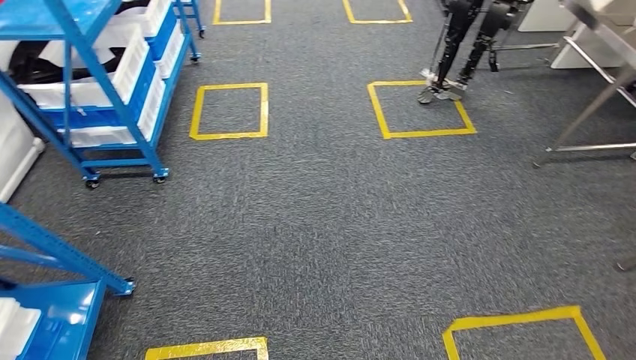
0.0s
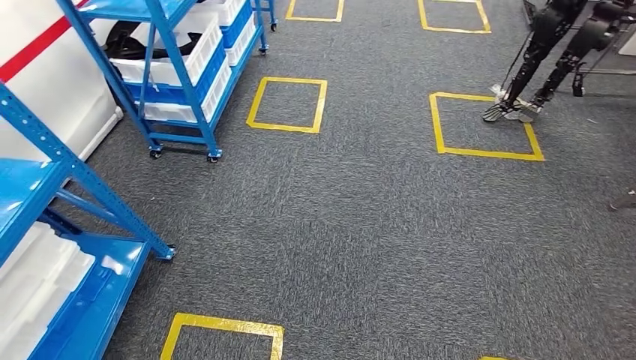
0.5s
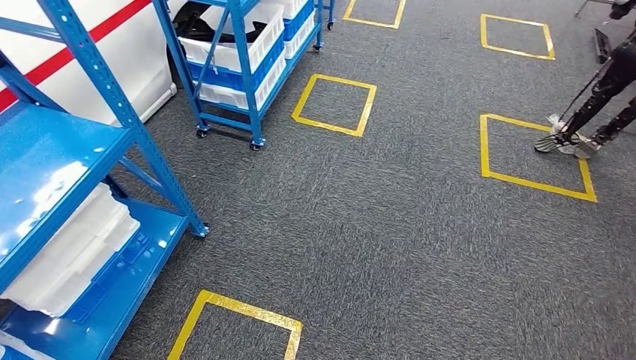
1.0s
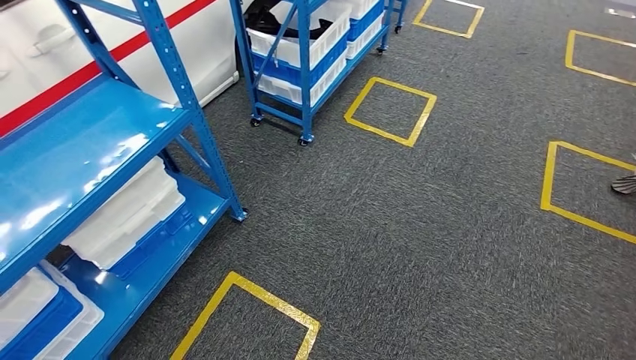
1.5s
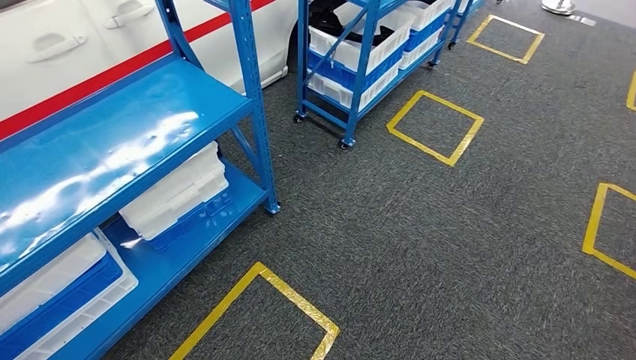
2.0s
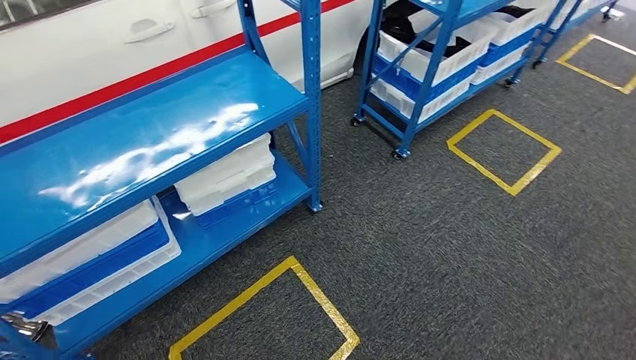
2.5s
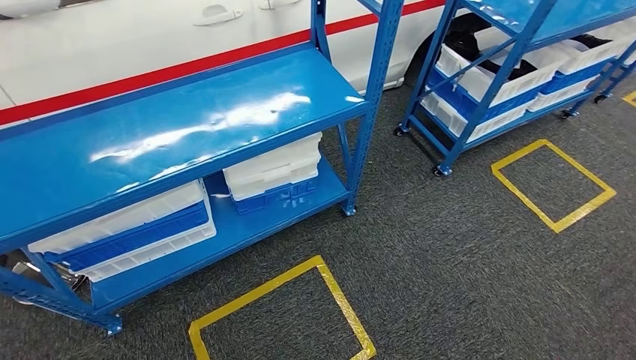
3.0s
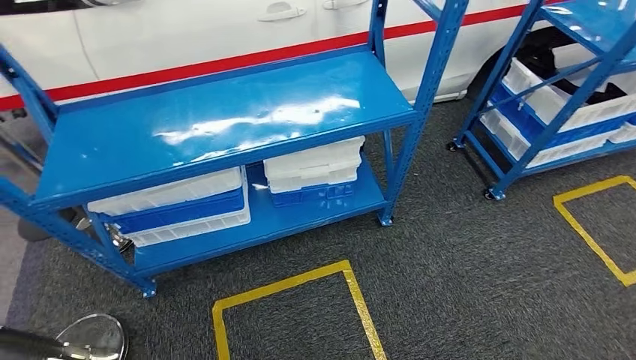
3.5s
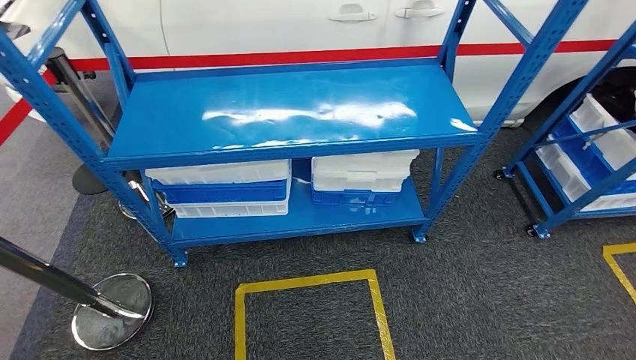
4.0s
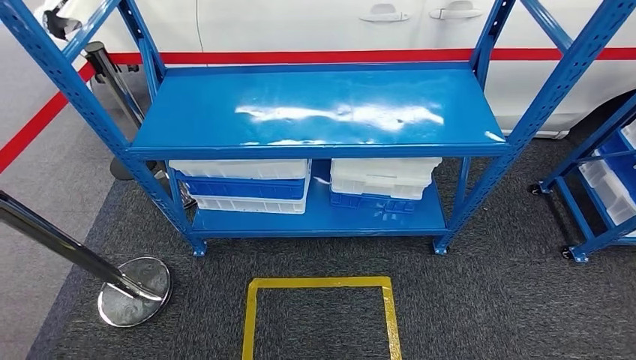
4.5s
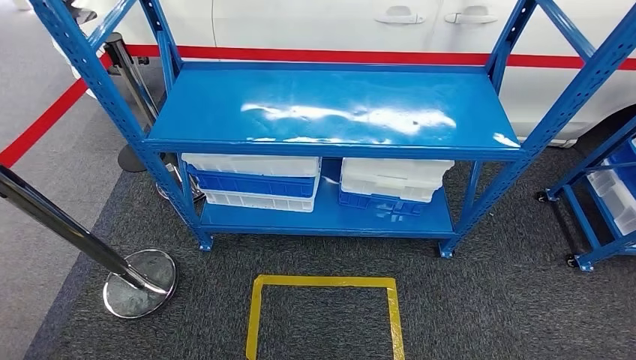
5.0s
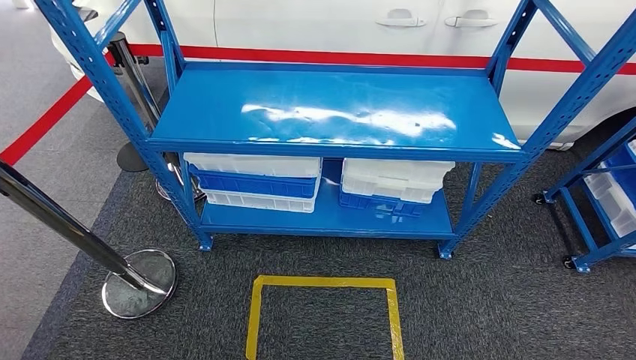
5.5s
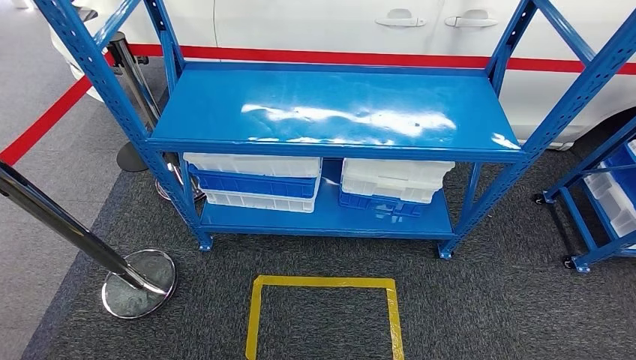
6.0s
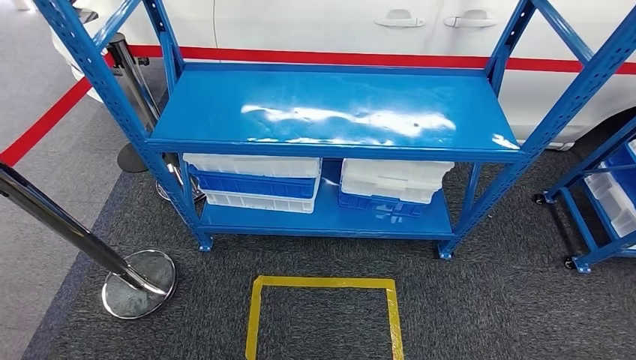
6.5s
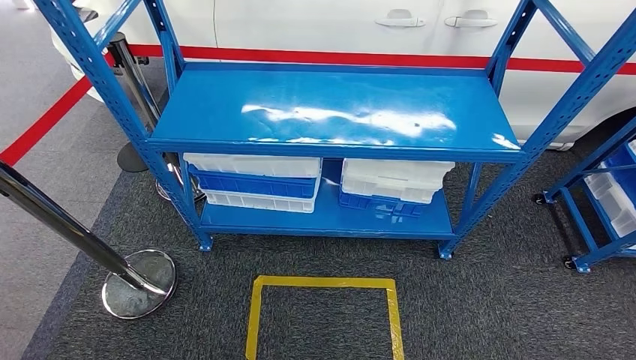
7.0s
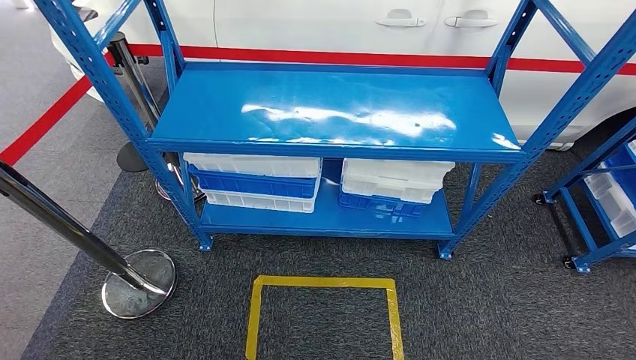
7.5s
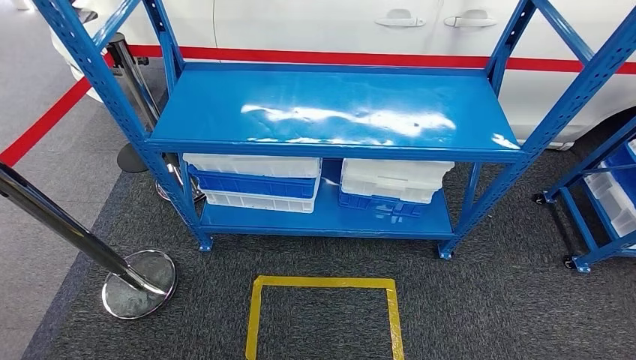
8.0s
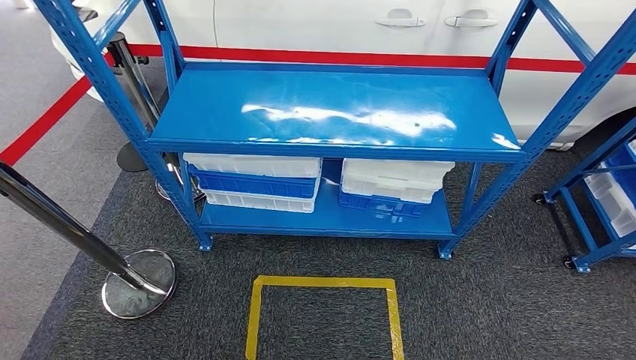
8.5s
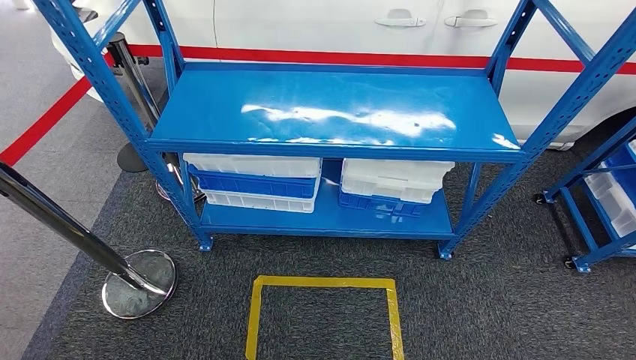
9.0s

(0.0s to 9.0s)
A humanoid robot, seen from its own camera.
Step, 0.0s - 9.0s: Return to the initial position at the shelf.
